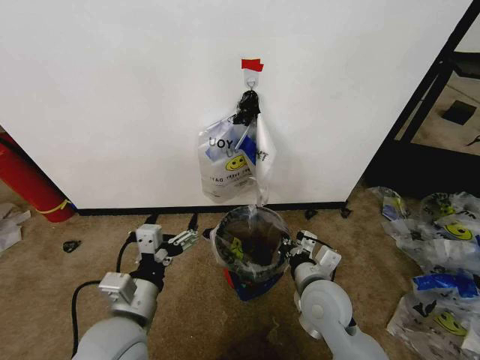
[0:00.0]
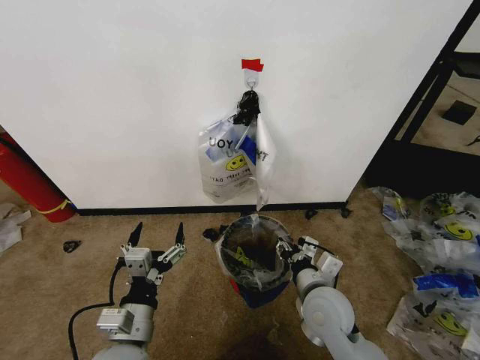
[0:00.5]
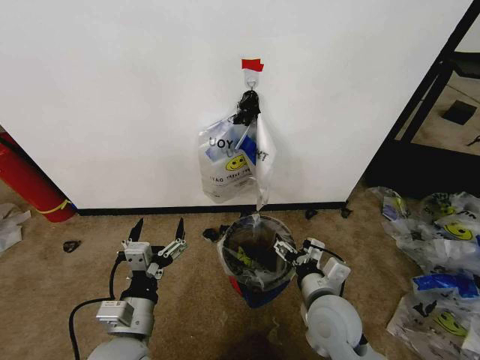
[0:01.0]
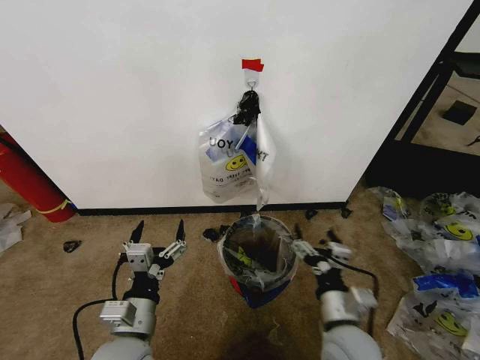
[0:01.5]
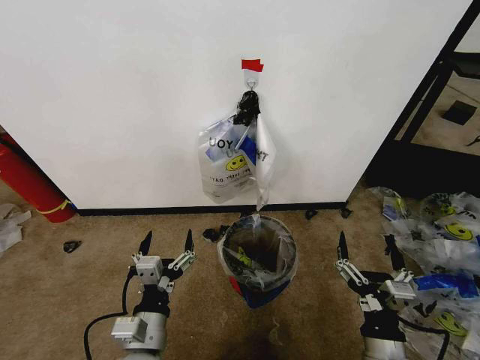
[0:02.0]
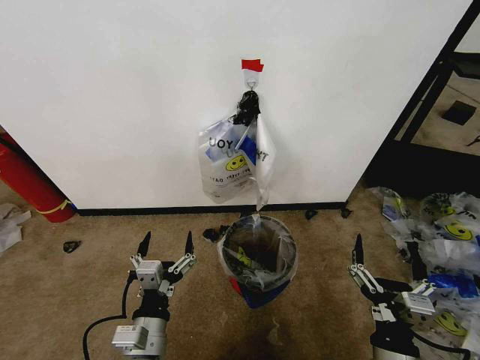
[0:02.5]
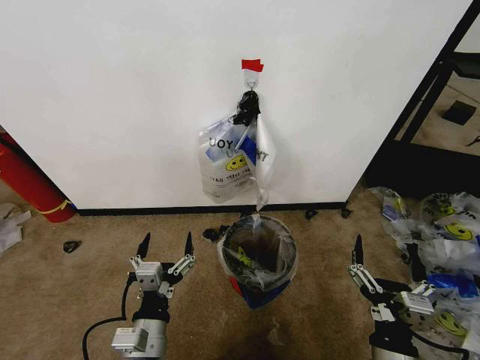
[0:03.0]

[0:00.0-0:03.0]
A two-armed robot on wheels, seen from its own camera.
Task of the whole recording: Pick up the garbage bag from the wall and place it over the trash bin.
0:00.0 to 0:01.5: The left gripper heads downward, covering some 5 cm. Meanwhile the right gripper shifts roughly 10 cm backward, and opens its fingers.
0:01.5 to 0:03.0: The right gripper is displaced backward by about 10 cm.

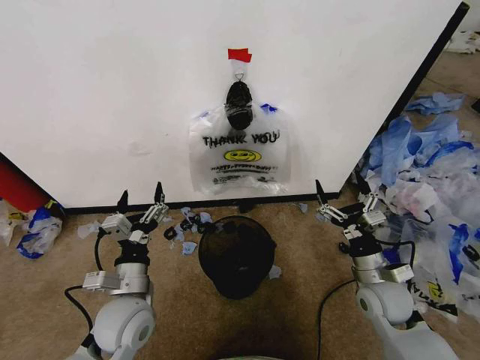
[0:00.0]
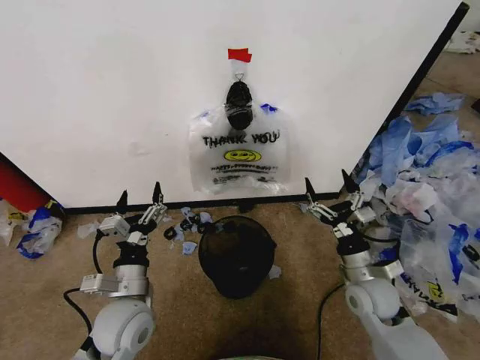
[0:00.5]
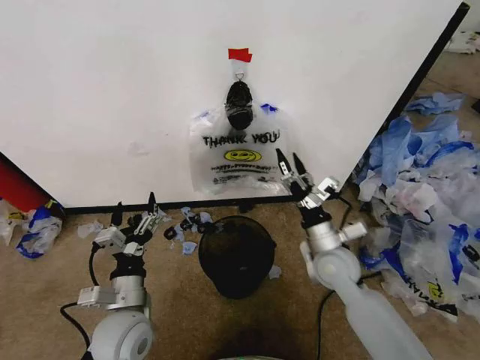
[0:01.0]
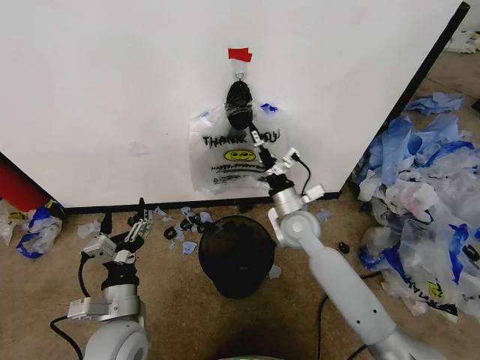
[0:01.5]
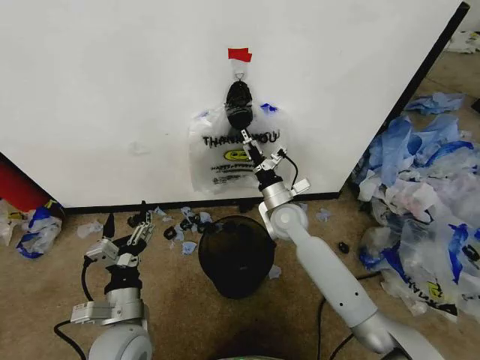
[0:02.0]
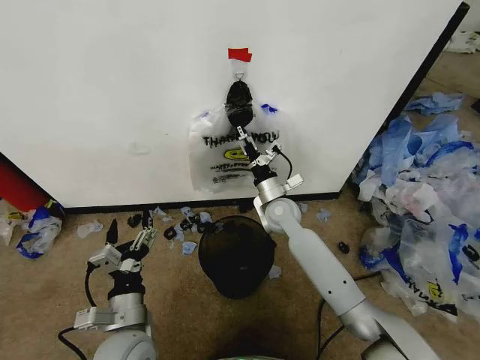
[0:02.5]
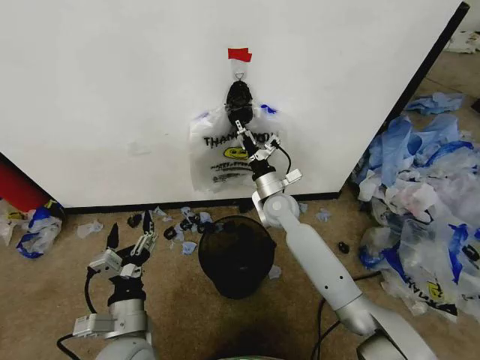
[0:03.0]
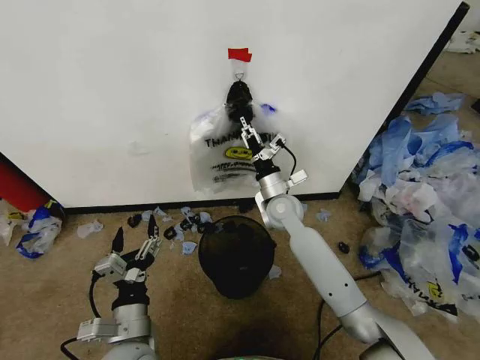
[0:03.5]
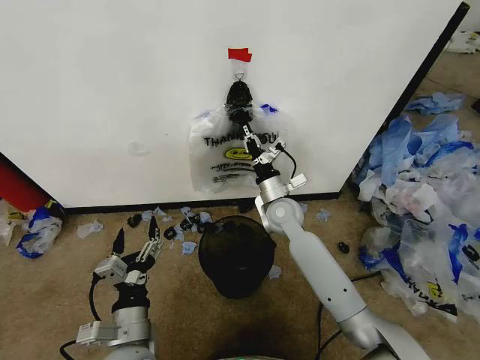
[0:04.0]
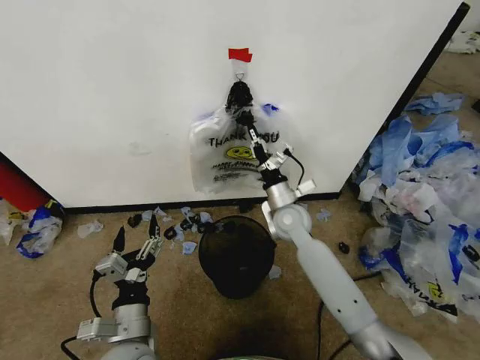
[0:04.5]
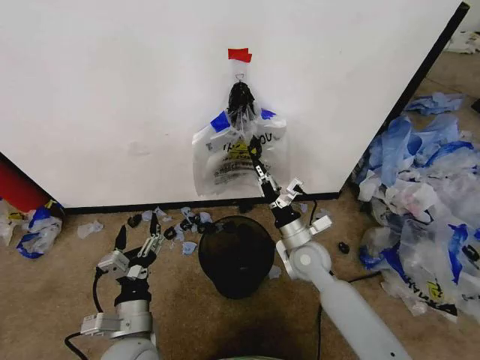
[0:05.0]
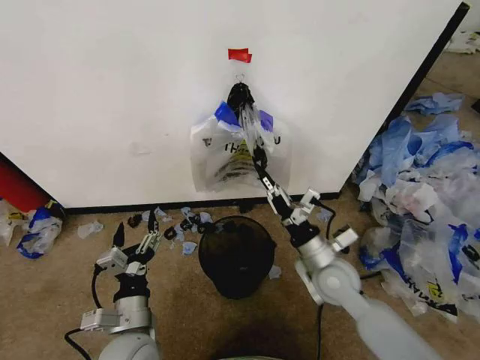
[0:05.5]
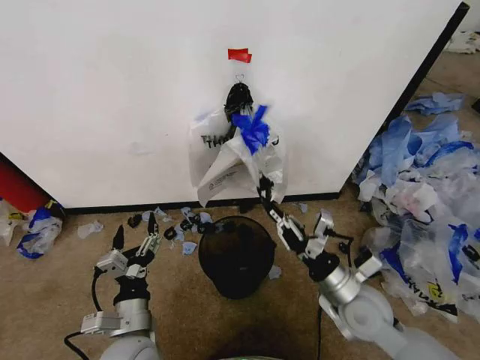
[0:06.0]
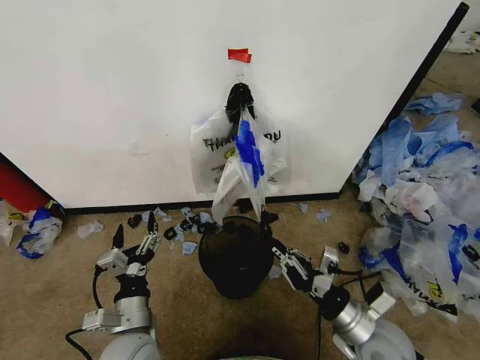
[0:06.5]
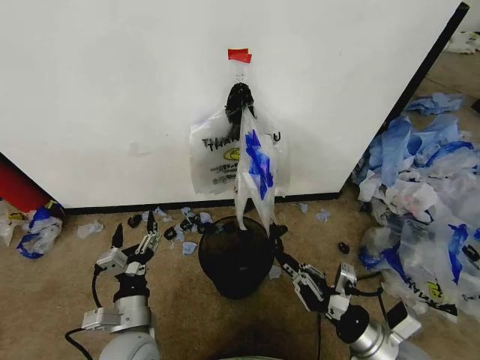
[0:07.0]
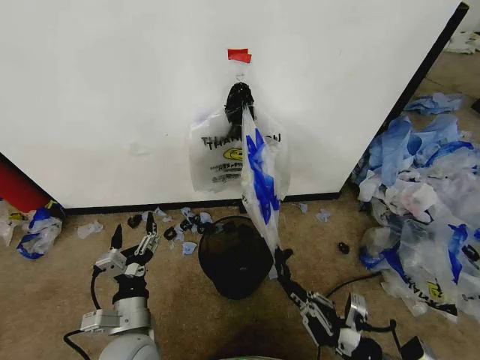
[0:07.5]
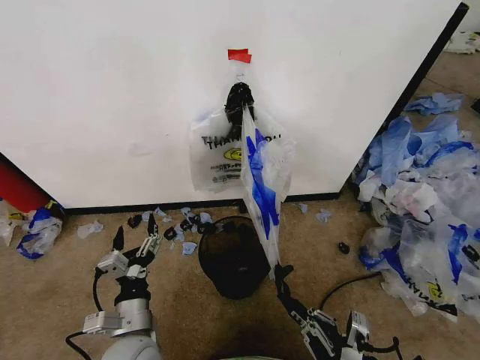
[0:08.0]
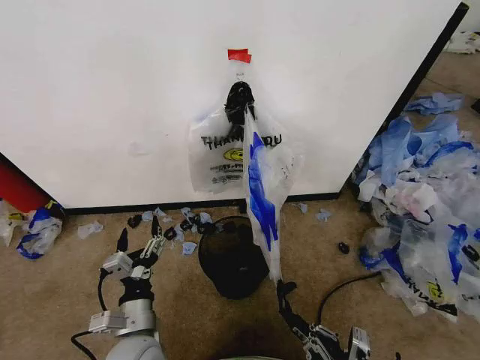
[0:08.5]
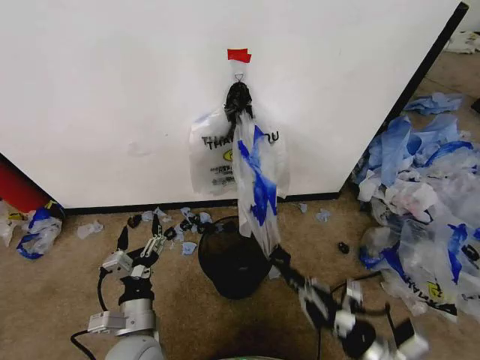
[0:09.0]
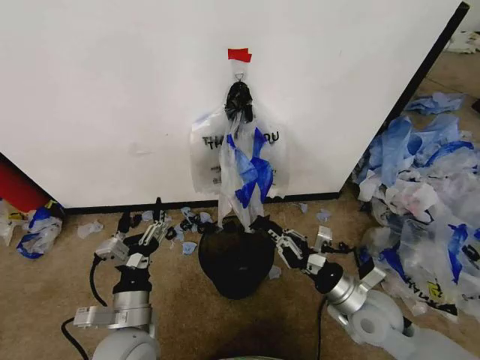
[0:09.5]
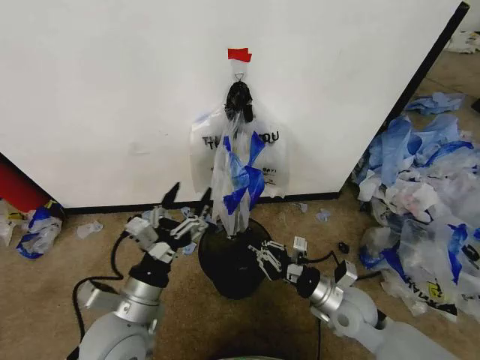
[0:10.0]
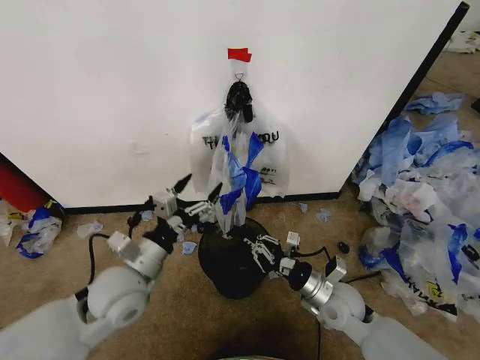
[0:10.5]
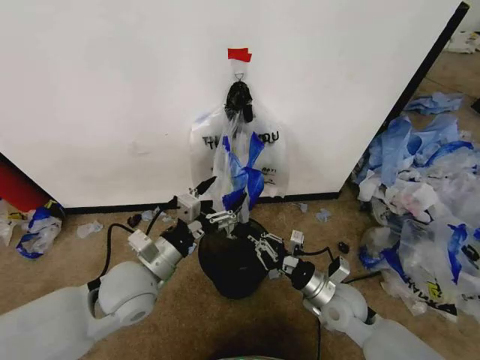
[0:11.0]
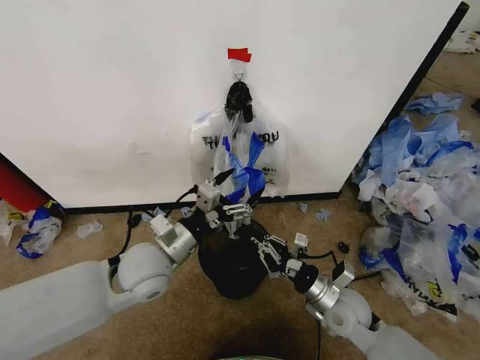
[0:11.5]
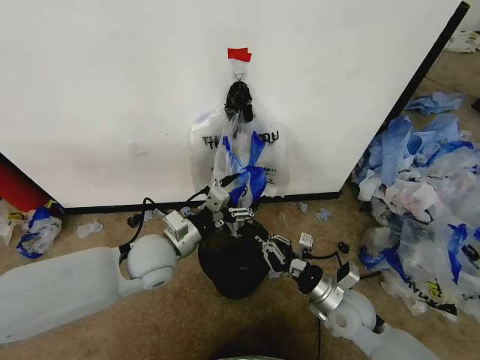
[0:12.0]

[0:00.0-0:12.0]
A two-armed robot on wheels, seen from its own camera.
Task of the whole recording: Pick up the garbage bag from the wall and place it over the trash bin.
0:02.0 to 0:04.0: The right gripper closes its fingers.
0:04.0 to 0:06.0: The right gripper moves backward and to the right, about 25 cm.
0:06.0 to 0:08.0: The right gripper goes some 15 cm backward.
0:08.0 to 0:10.0: The left gripper shifts about 10 cm upward; the right gripper moves forward, some 20 cm.
0:10.0 to 0:12.0: The left gripper goes approximately 15 cm forward.

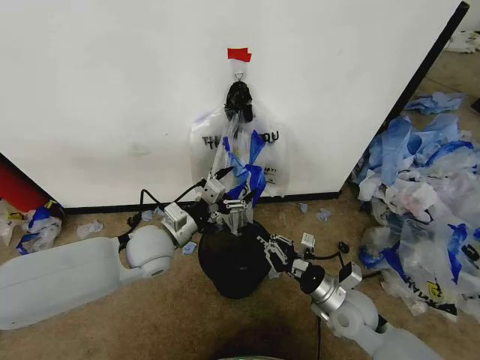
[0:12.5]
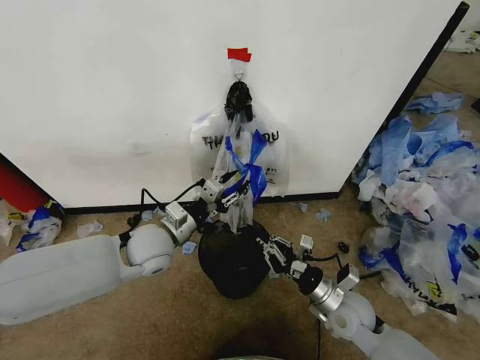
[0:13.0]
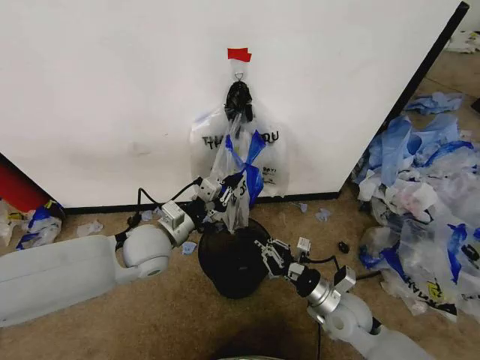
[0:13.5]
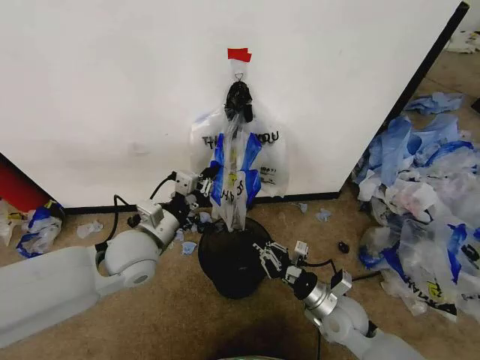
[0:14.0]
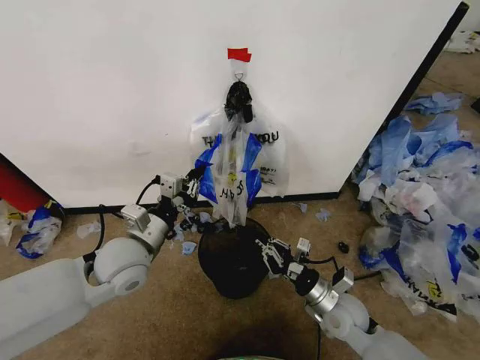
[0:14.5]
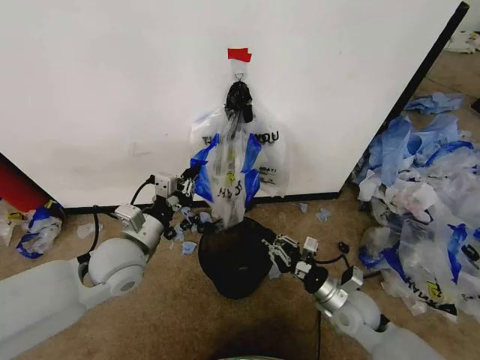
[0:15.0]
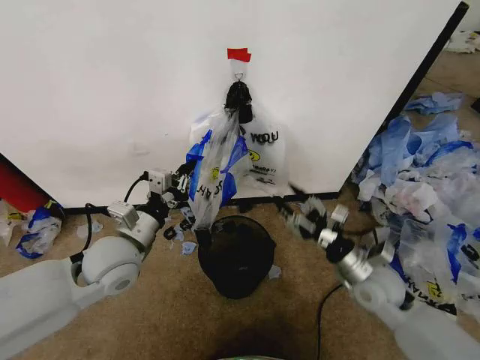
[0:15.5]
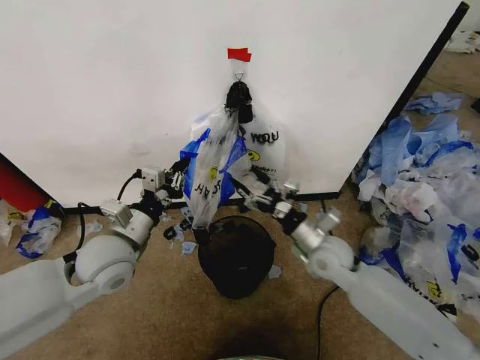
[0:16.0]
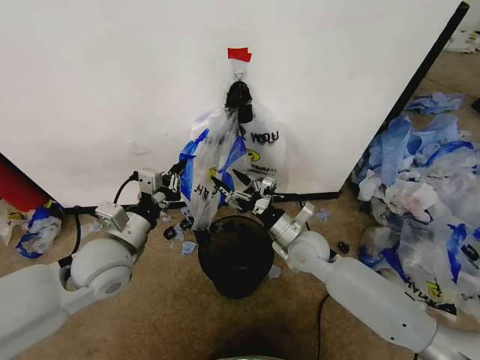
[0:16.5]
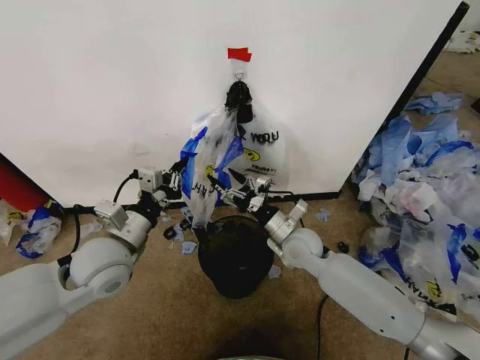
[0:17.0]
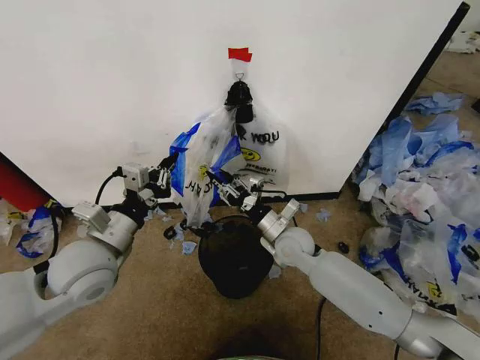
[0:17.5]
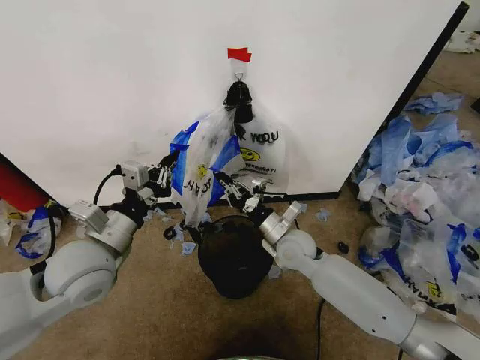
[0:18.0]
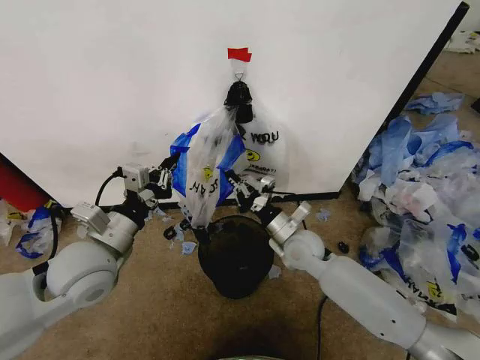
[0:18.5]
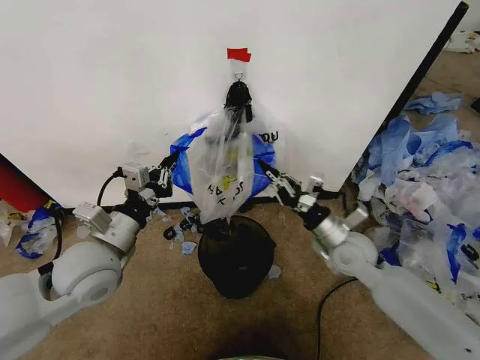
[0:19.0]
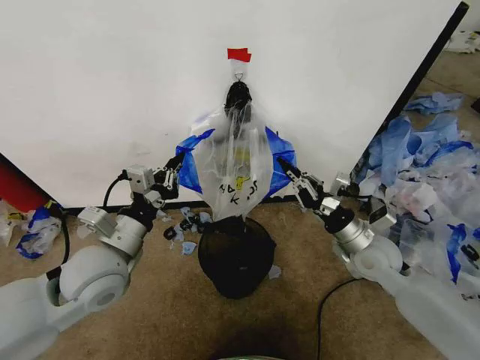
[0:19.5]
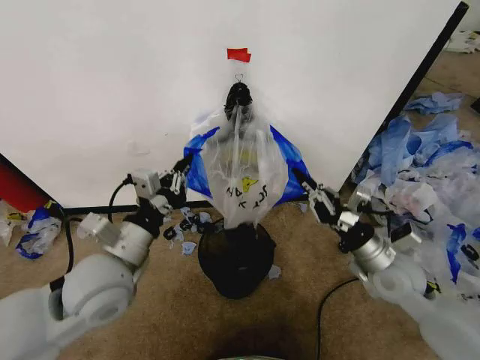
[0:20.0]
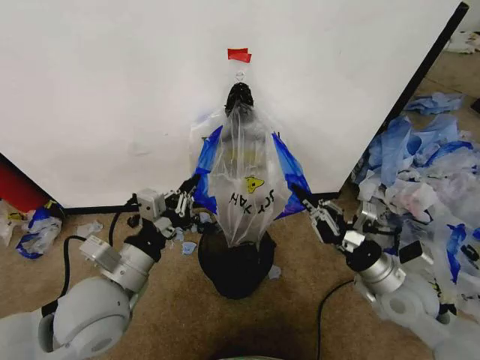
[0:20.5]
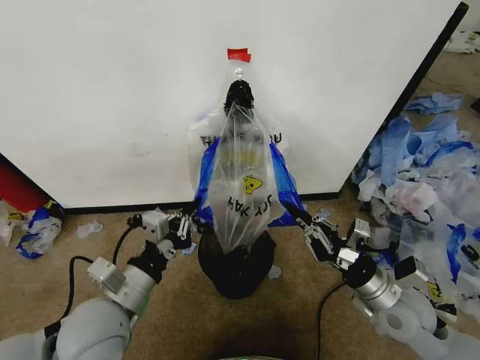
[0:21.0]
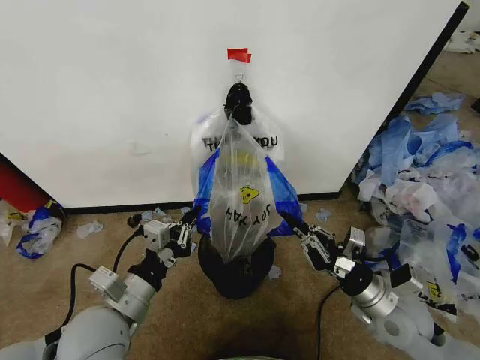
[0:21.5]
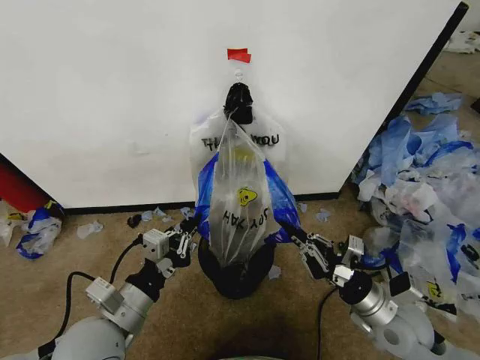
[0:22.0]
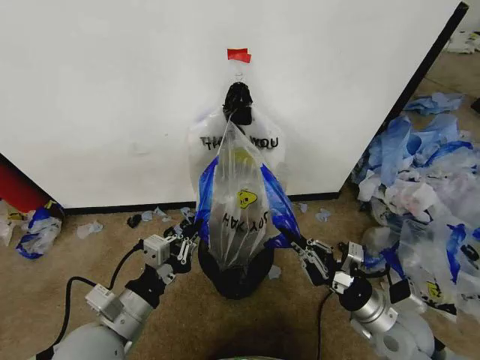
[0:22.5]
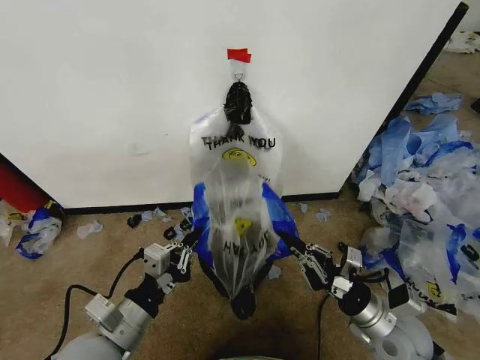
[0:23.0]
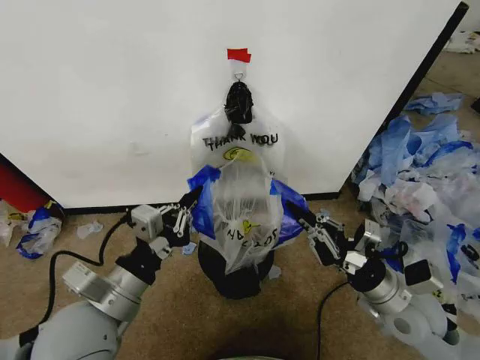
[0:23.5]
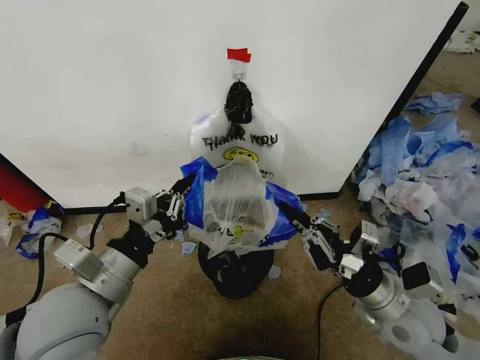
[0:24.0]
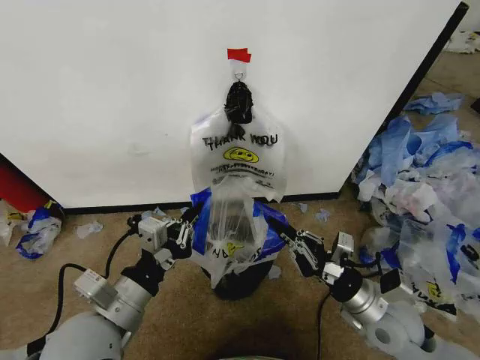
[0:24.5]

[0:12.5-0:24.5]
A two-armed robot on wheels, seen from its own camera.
Task of the whole recording: Pick up the garbage bag from the wall and place it over the trash bin.
0:12.5 to 0:14.5: The left gripper changes place by some 5 cm, and closes up.
0:14.5 to 0:16.5: The right gripper is displaced forward, upward and to the left by about 15 cm, and opens up.
0:16.5 to 0:18.5: The right gripper closes up.
0:18.5 to 0:20.5: The left gripper goes about 5 cm backward. The right gripper heads to the right and backward, covering about 20 cm.
0:20.5 to 0:22.5: The right gripper shifts by roughly 5 cm. The left gripper goes approximately 5 cm downward.
